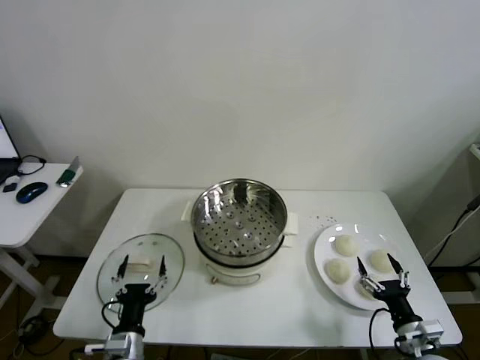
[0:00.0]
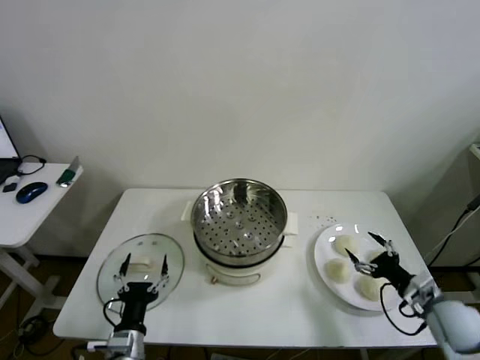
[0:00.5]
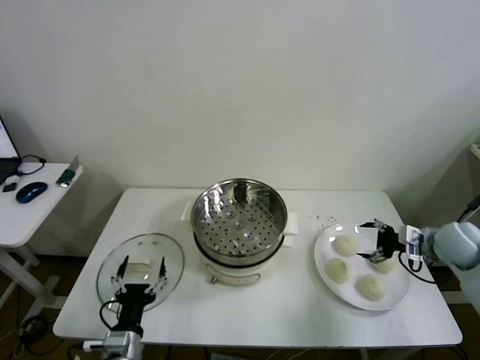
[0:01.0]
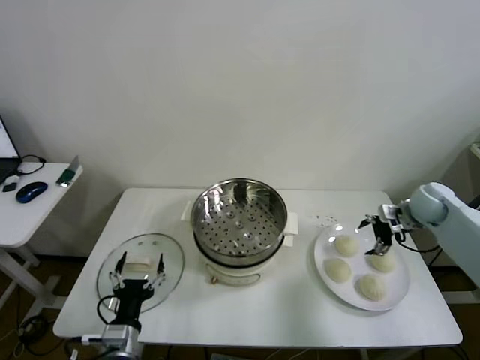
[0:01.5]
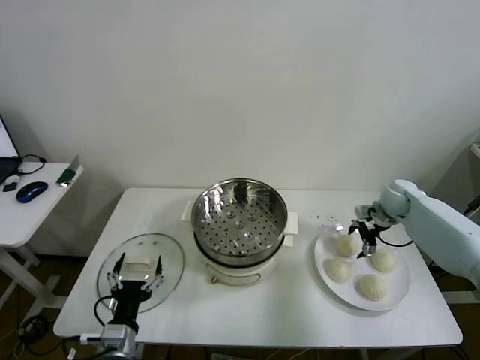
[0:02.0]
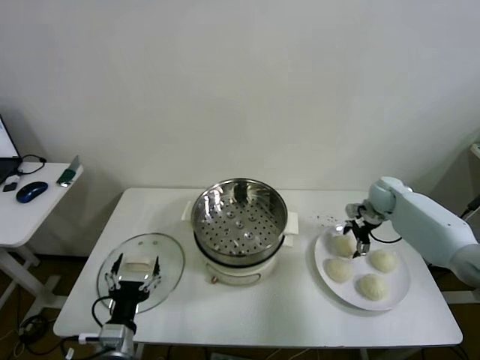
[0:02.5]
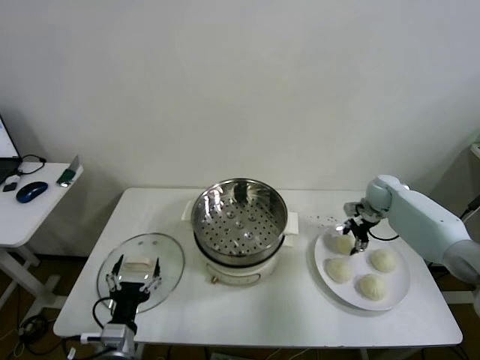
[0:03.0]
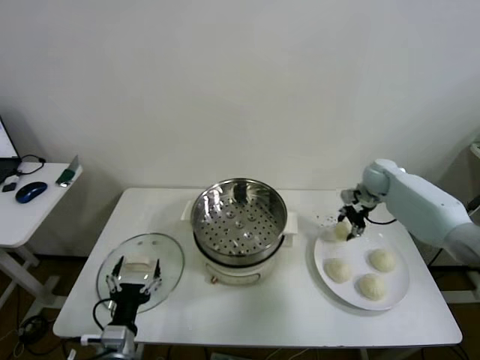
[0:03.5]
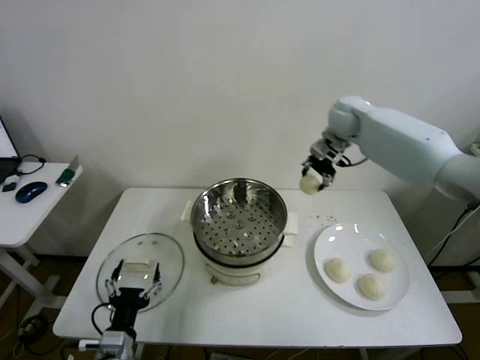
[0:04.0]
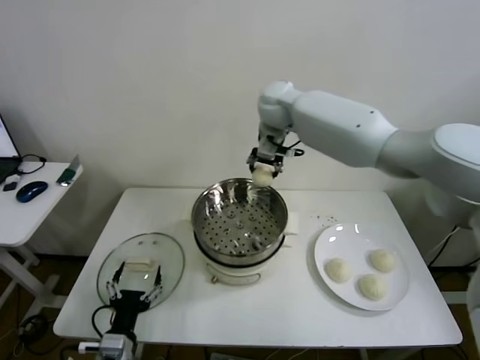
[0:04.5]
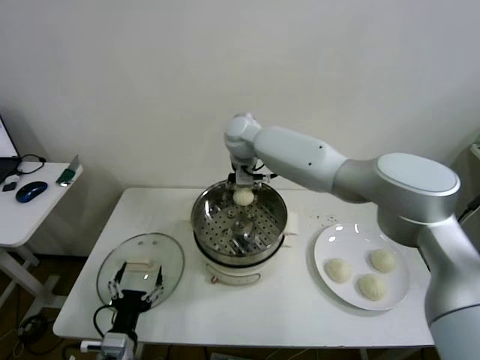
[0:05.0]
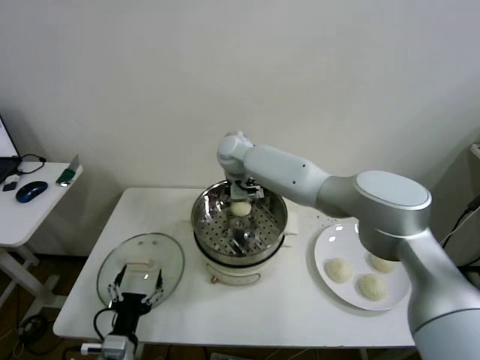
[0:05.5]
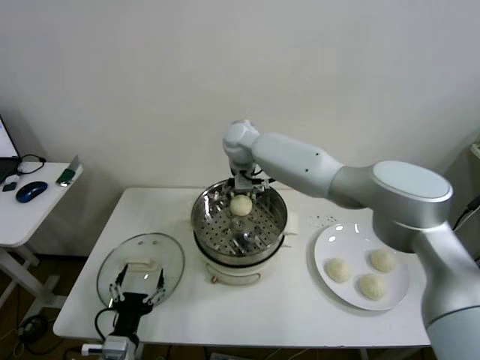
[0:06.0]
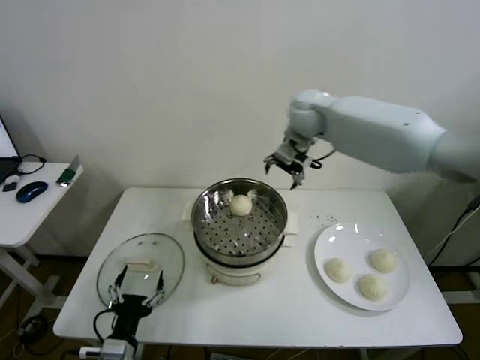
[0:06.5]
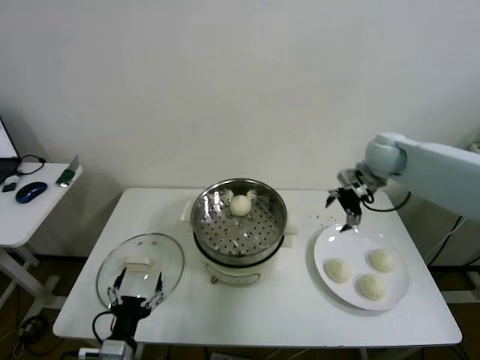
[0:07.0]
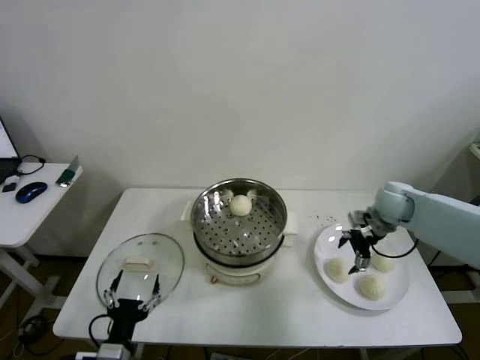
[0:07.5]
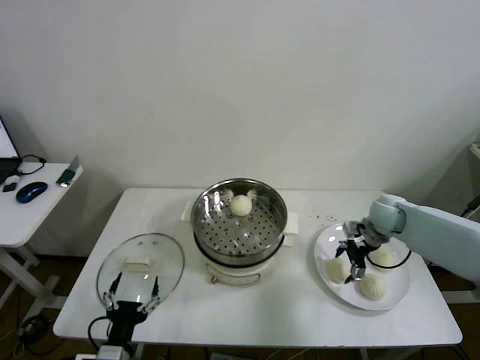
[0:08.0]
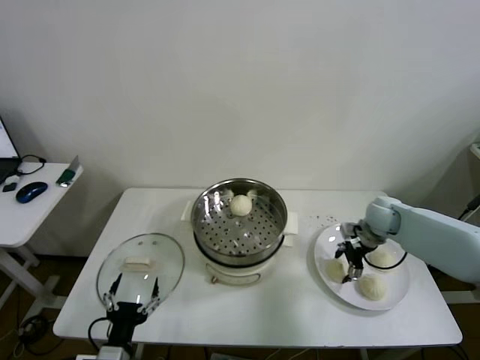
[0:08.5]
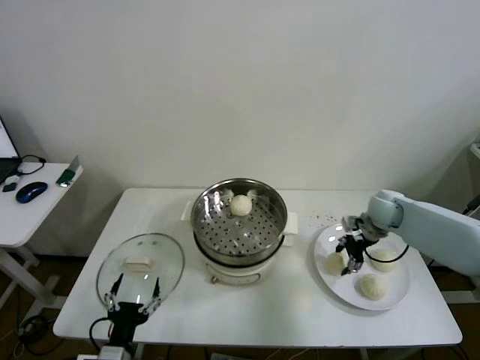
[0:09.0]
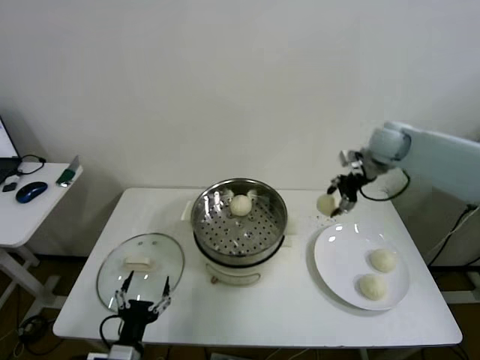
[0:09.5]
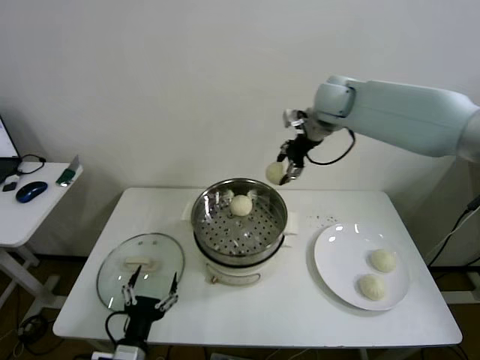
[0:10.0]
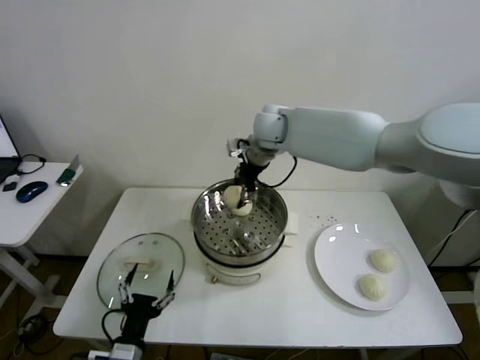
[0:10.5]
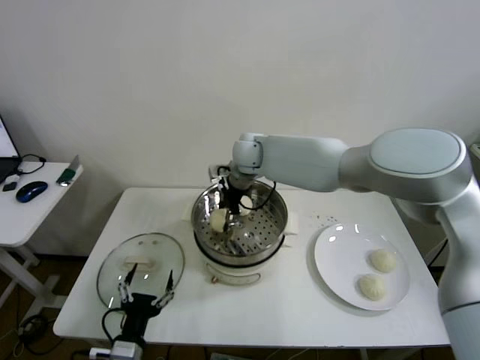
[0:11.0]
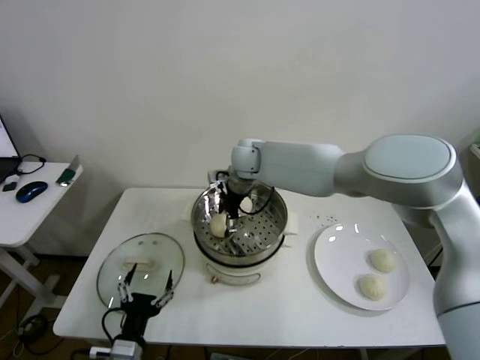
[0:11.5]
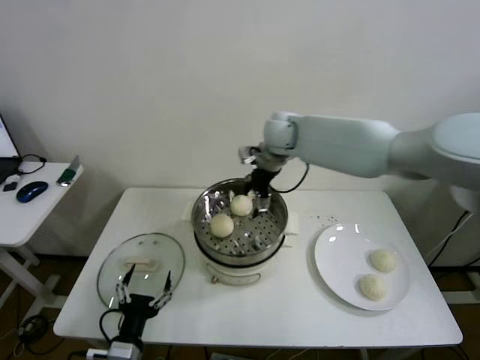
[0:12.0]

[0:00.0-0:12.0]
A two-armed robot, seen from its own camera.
Step, 0:00.0 to 0:03.0: Grasp the baozi in the plate with right gripper.
Step, 0:03.5 to 0:05.5: Place the baozi on the steamer with right gripper.
Step, 0:06.0 to 0:08.5: Grasp the baozi in the plate with right gripper.
Step, 0:09.0 to 0:11.5: Place the baozi on the steamer with right gripper.
0:02.0 to 0:04.0: The right gripper moves upward and to the left, approximately 30 cm, and closes.
0:04.0 to 0:06.0: The right gripper travels to the left by some 20 cm, and opens its fingers.
0:06.0 to 0:08.0: The right gripper goes approximately 40 cm to the right and downward.
0:08.0 to 0:10.0: The right gripper shifts about 35 cm upward and to the left, and closes.
0:10.0 to 0:12.0: The right gripper travels downward and to the left by roughly 10 cm, and opens up.

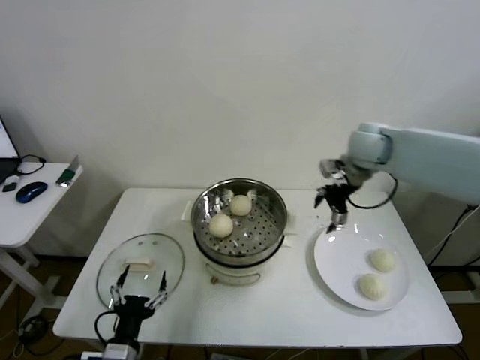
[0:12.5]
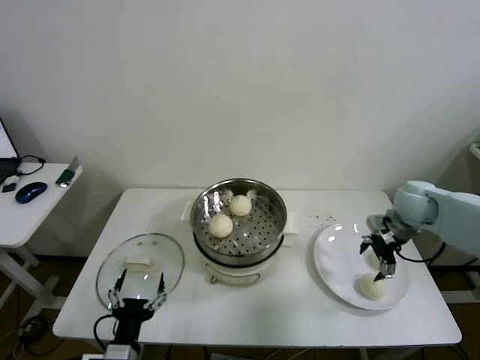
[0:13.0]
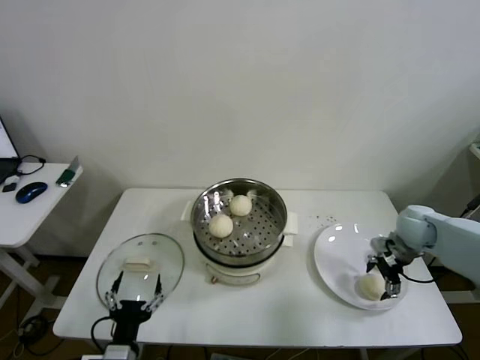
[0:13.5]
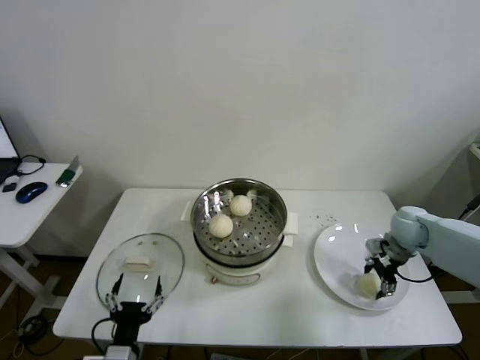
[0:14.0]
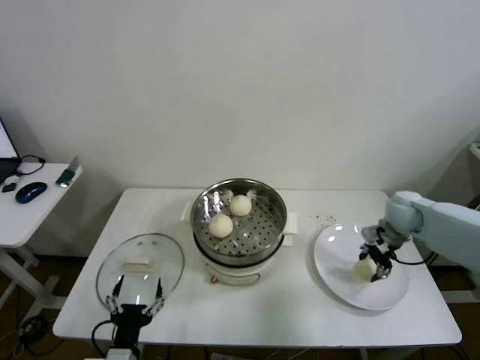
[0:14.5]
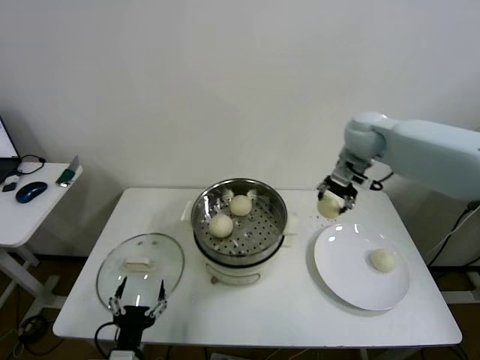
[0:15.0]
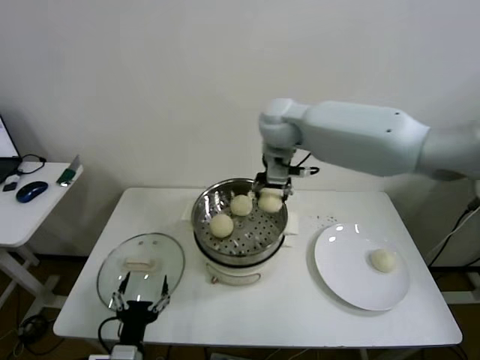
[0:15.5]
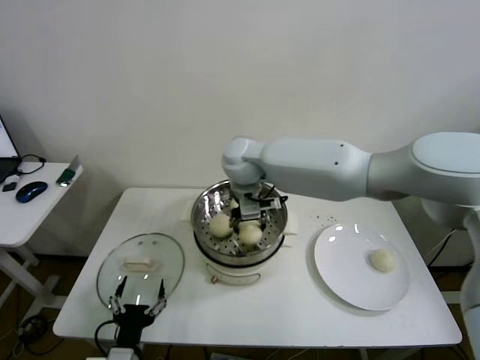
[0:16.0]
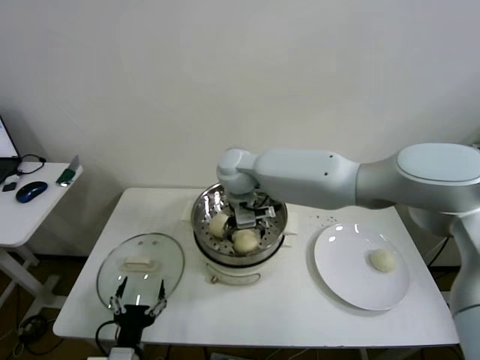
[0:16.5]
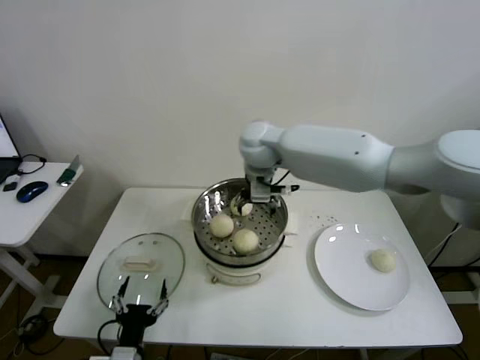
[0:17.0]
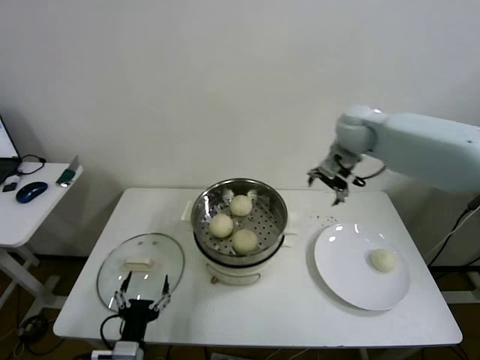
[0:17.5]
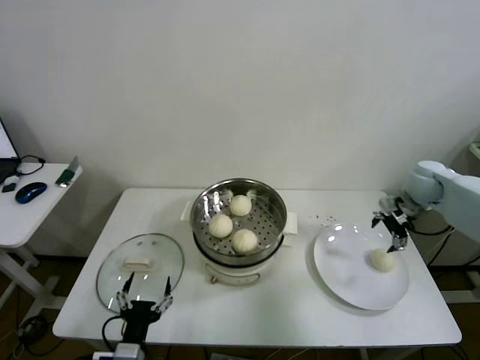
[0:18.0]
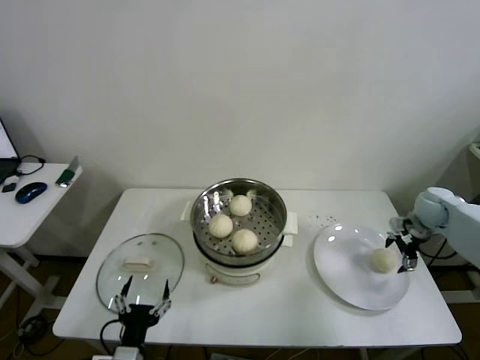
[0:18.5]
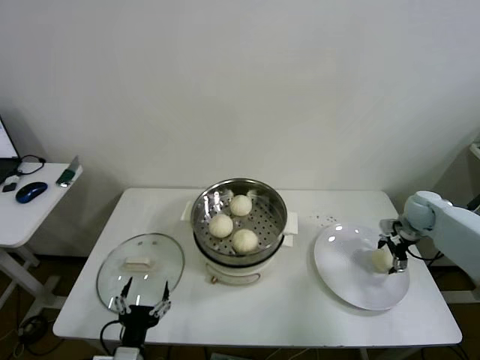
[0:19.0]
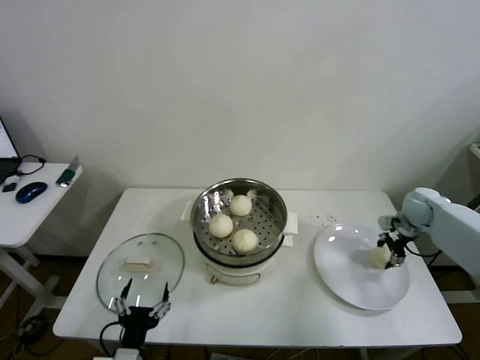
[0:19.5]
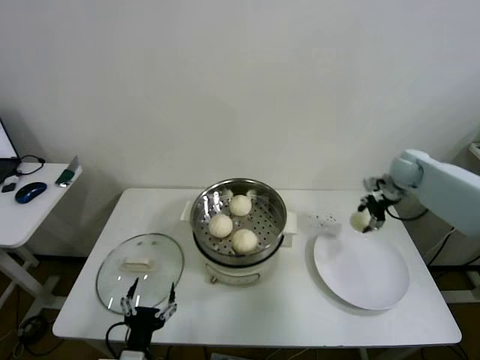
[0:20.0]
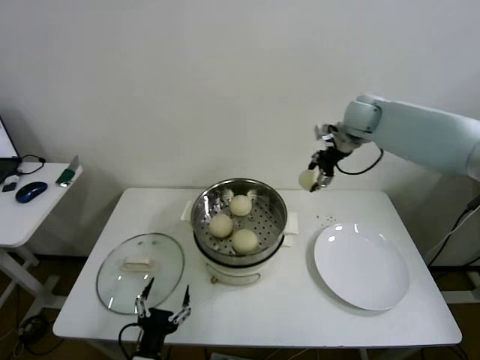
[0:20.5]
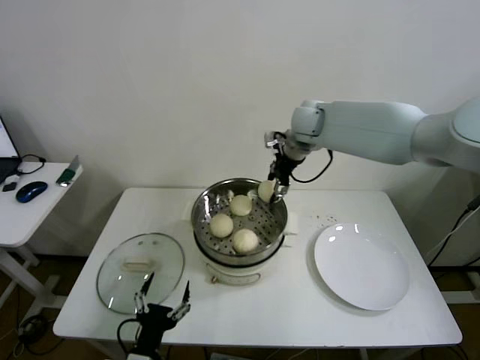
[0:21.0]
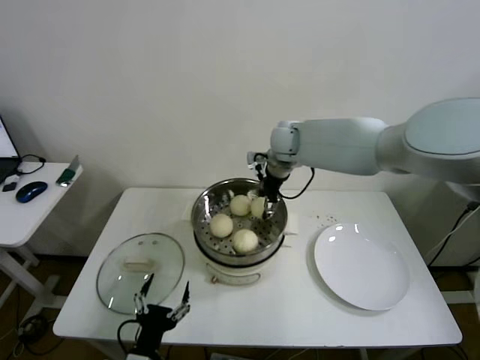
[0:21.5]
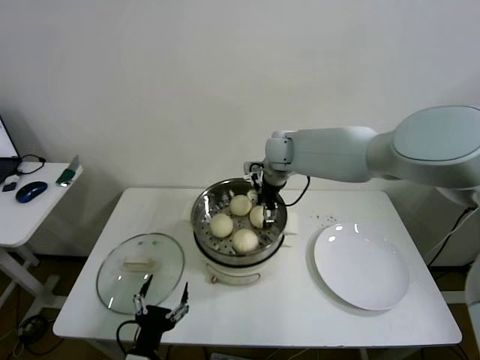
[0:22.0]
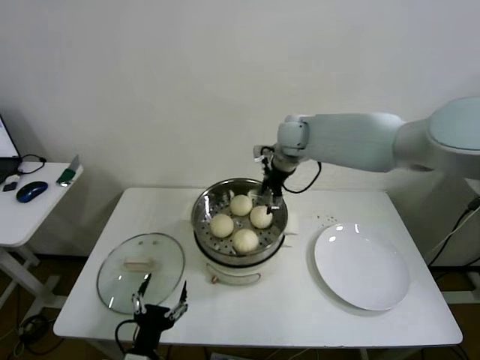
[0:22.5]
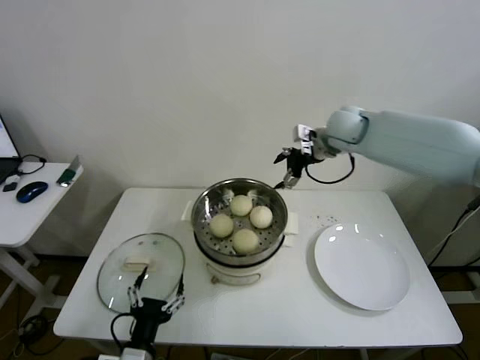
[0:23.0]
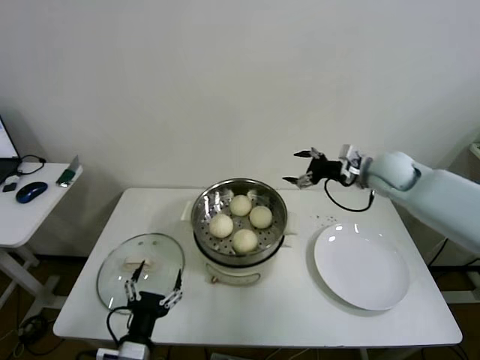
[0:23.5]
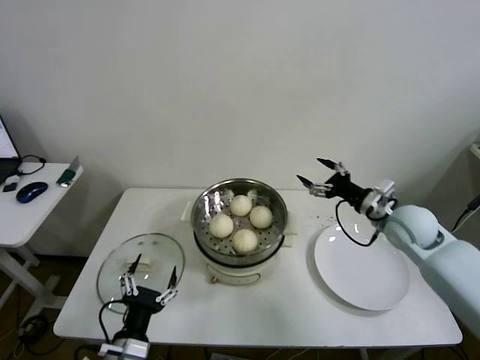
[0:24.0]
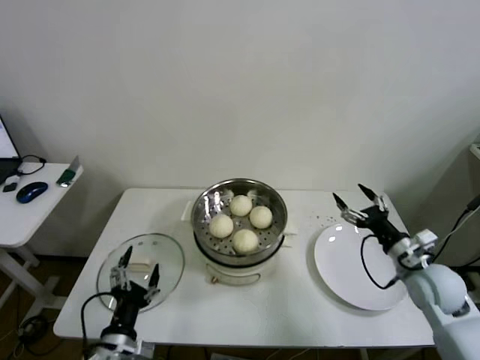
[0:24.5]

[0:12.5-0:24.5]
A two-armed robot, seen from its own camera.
Step, 0:12.5 to 0:14.0: Grasp the baozi in the plate with right gripper.
Step, 0:14.5 to 0:16.5: Place the baozi on the steamer with right gripper.
Step, 0:17.0 to 0:19.0: Grasp the baozi in the plate with right gripper.
Step, 0:19.5 to 0:22.0: Place the baozi on the steamer with right gripper.
0:12.5 to 0:14.5: The right gripper moves downward and to the right, some 15 cm, and closes.
0:14.5 to 0:16.5: The right gripper goes about 40 cm to the left, and opens up.
0:16.5 to 0:18.5: The right gripper travels to the right by some 50 cm.
0:18.5 to 0:20.5: The right gripper heads to the left, upward and forward, covering roughly 30 cm, and closes up.
0:20.5 to 0:22.5: The right gripper travels to the left by about 15 cm, and opens up.
0:22.5 to 0:24.5: The right gripper heads backward, to the right and downward, covering roughly 40 cm, while the left gripper changes place by about 5 cm.

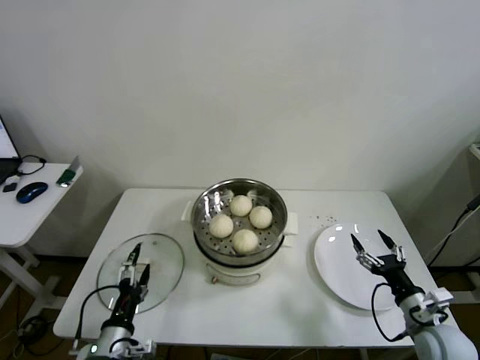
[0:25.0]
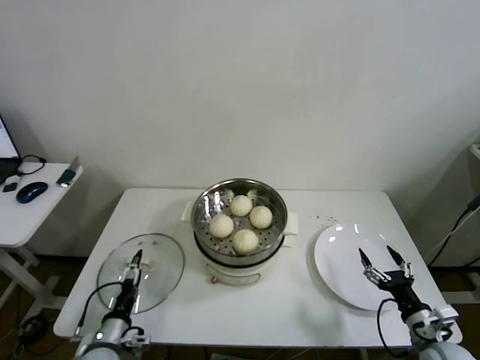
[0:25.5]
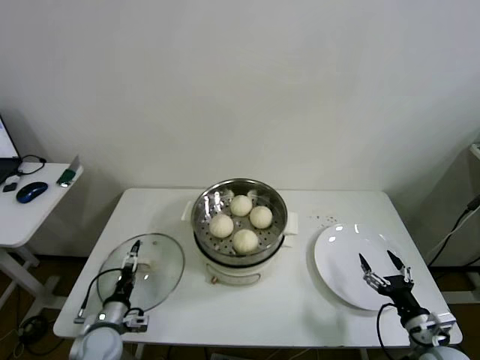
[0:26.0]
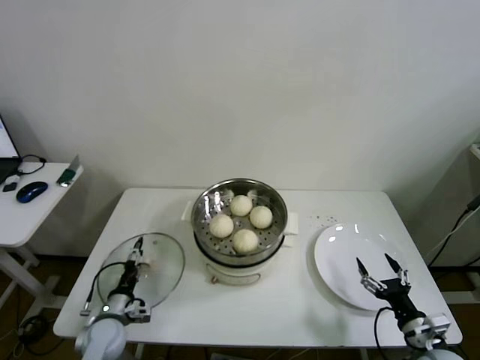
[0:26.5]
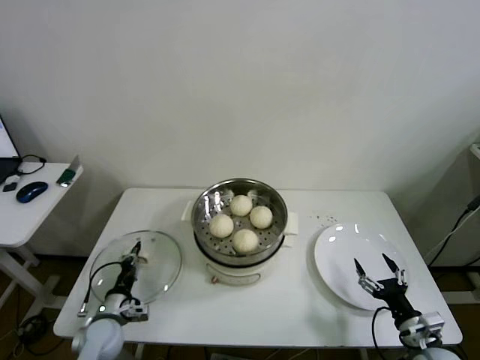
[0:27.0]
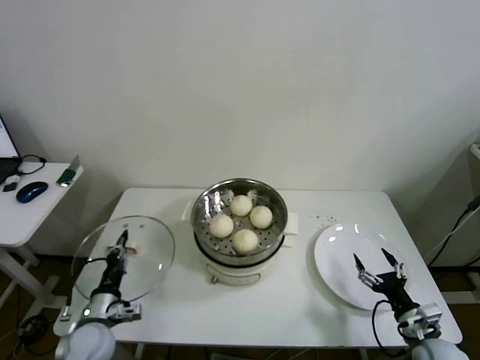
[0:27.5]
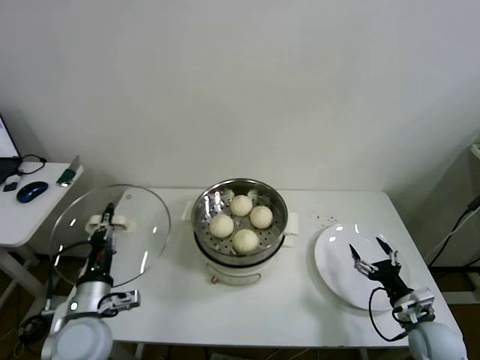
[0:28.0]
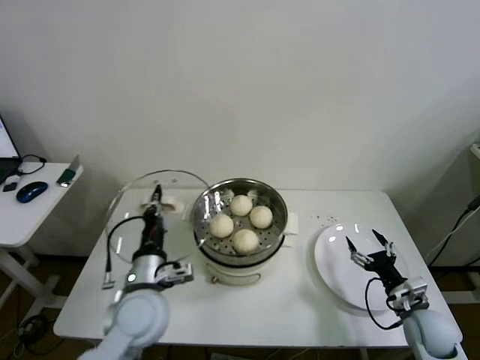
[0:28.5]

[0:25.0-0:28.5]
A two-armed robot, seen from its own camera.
Step, 0:25.0 to 0:27.0: Grasp the pot lid with left gripper.
0:25.0 to 0:27.0: The right gripper heads downward, covering roughly 5 cm. The left gripper goes about 15 cm forward, downward and to the left, and closes up.
0:27.0 to 0:28.5: The right gripper moves forward, about 5 cm. Meanwhile the left gripper heads upward and to the right, covering approximately 25 cm.
